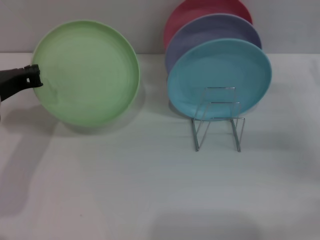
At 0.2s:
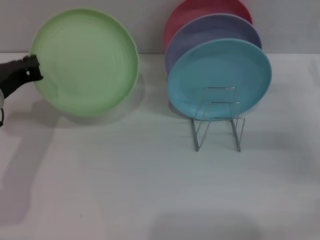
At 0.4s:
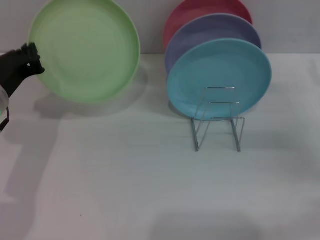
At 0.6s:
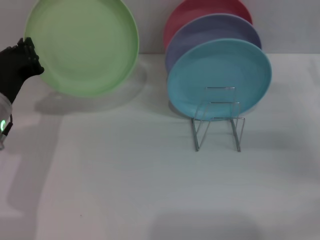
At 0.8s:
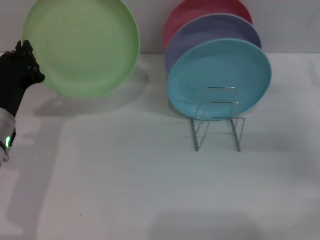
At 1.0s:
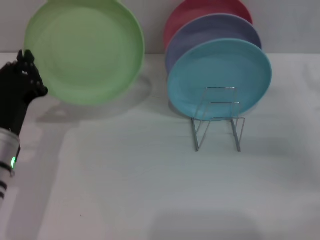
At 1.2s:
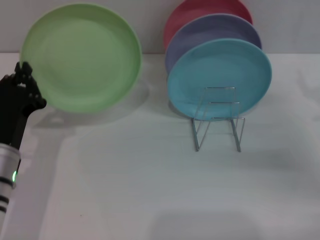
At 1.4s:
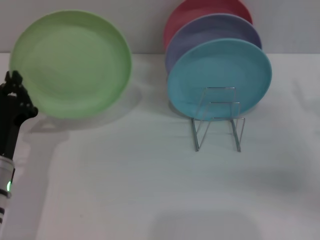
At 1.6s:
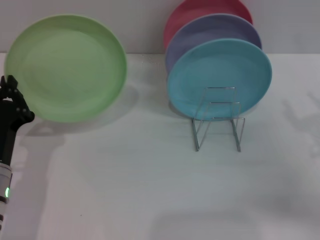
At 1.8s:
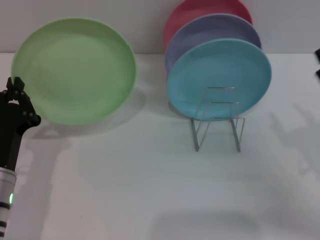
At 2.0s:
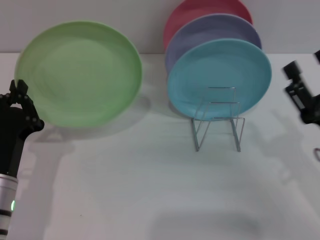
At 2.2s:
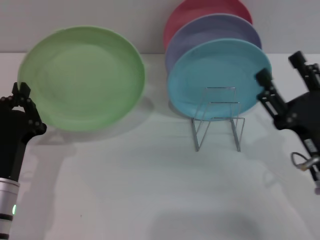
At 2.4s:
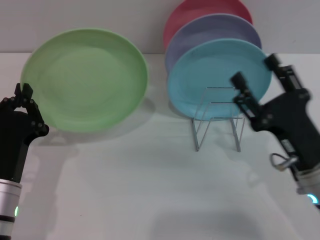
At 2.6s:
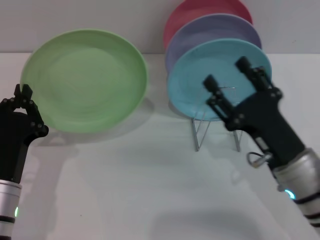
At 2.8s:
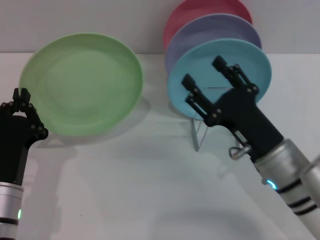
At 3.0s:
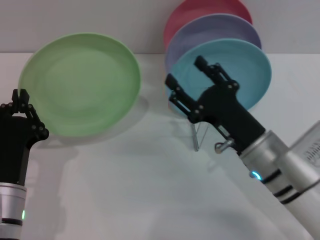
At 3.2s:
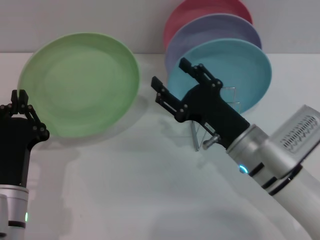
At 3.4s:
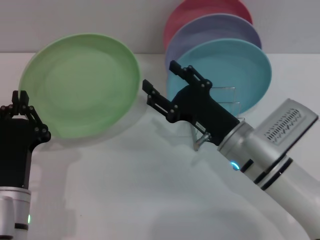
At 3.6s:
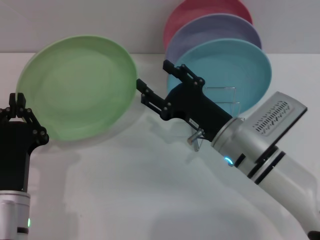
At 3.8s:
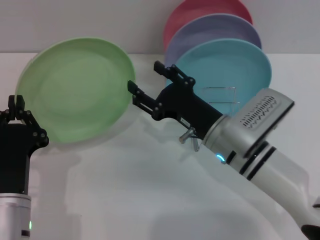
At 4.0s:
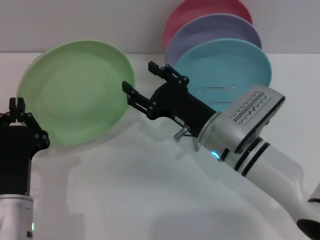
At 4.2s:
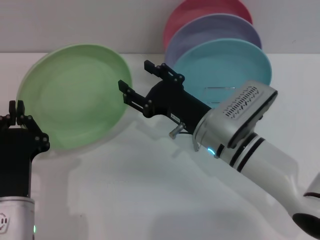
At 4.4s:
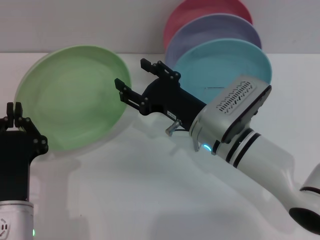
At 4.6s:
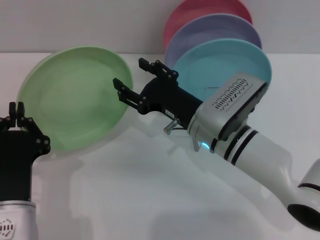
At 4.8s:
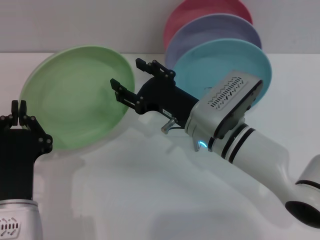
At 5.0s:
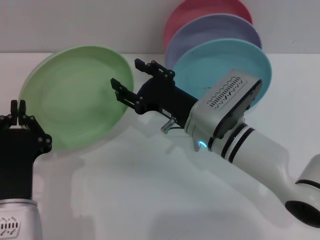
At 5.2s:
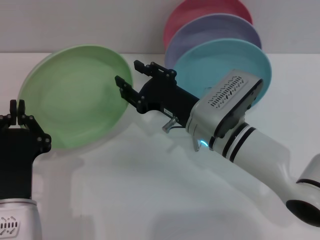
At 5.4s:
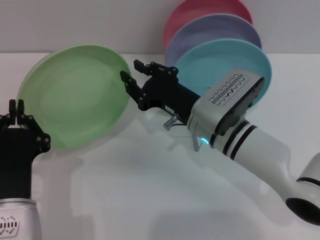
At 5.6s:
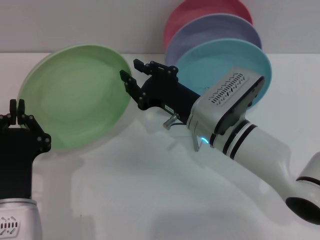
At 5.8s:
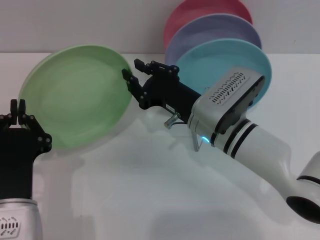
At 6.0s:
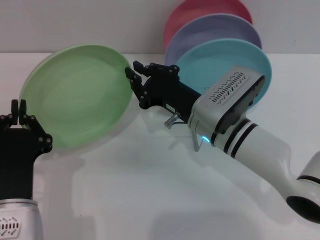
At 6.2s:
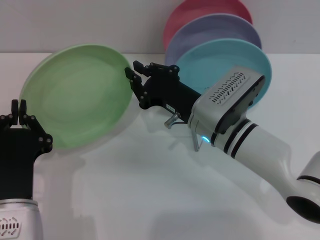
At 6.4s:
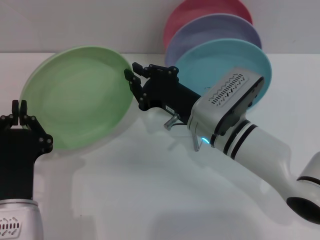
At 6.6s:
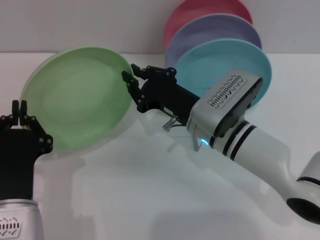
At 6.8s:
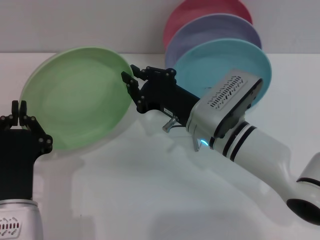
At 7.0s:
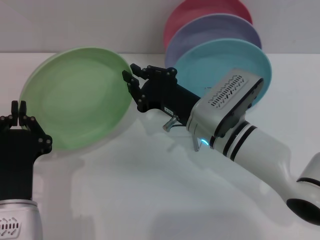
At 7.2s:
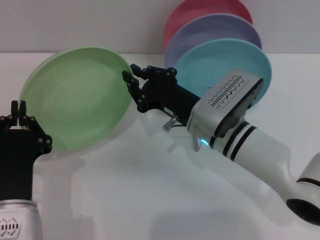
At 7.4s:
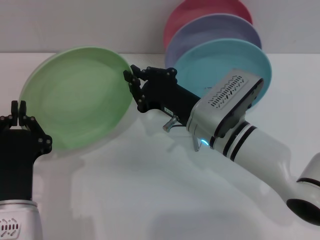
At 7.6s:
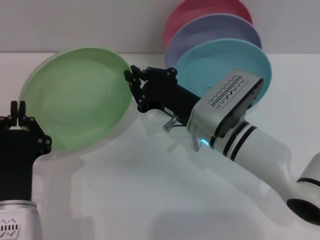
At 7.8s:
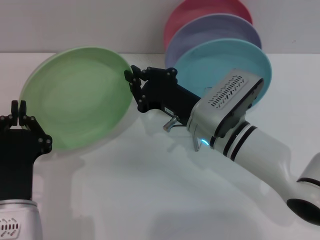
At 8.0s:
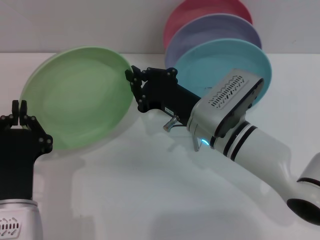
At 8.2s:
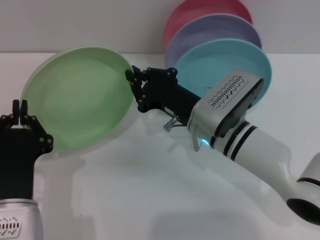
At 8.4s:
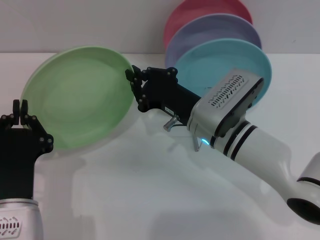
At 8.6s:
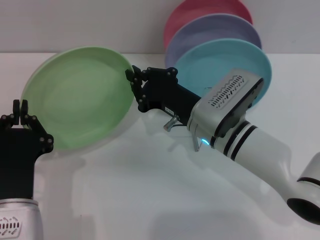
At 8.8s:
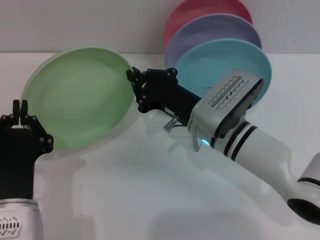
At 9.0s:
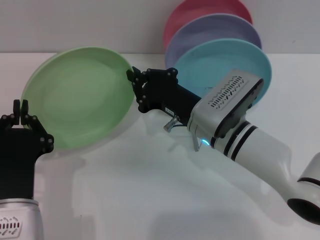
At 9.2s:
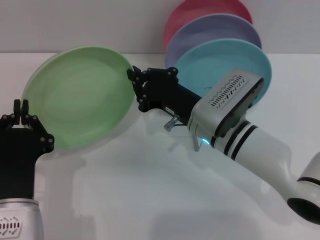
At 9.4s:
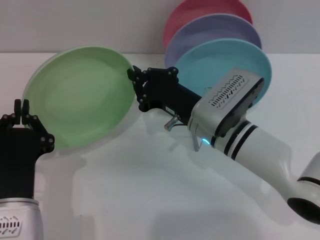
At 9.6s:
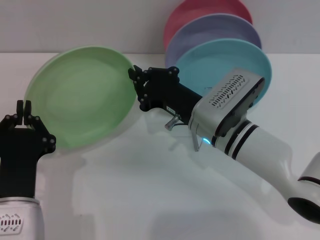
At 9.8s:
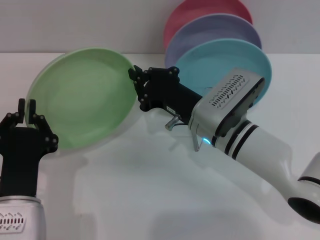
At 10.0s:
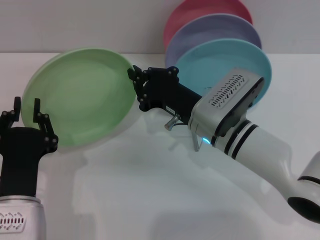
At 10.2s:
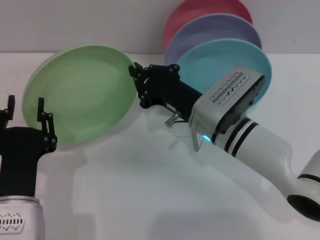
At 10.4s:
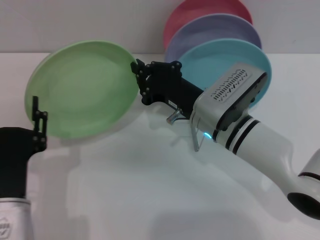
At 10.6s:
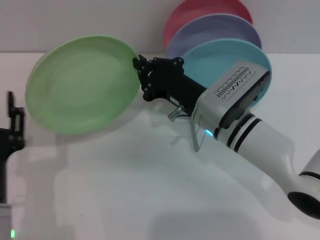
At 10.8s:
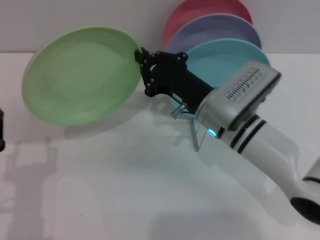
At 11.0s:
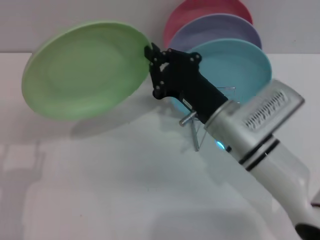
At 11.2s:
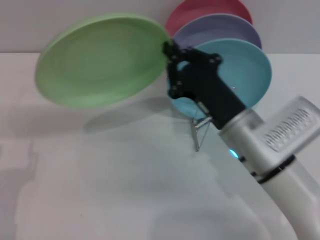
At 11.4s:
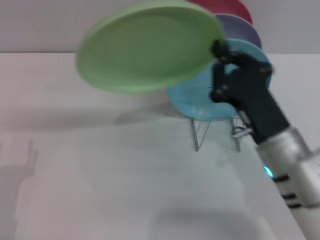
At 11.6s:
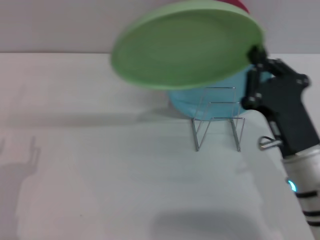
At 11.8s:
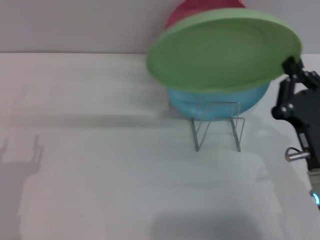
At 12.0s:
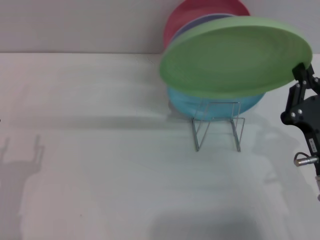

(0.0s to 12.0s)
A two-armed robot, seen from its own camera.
Task of the whole recording: Grip the plate with one hand, pass it to the other, then set it on the shelf.
Step, 0.0s - 10.0s: Pass the plate from the left gripper to the right gripper.
0.0s - 1.6s: The left gripper travels downward and backward by some 15 cm, while the right gripper goes roughly 10 cm backward.
1.6s - 3.0s: The right gripper is displaced to the left by some 15 cm.
3.0s - 4.4s: The right gripper goes approximately 10 cm to the left and forward.
4.4s - 6.0s: The right gripper closes its fingers.
6.0s - 9.0s: Neither gripper changes place.
9.0s - 10.4s: The left gripper opens its fingers.
10.4s - 12.0s: The left gripper moves to the left, about 10 cm. The right gripper is displaced backward and to the right by about 20 cm.

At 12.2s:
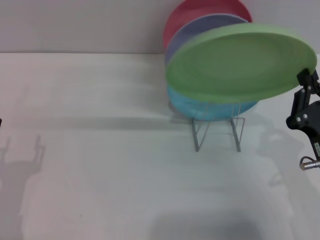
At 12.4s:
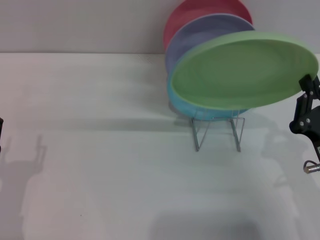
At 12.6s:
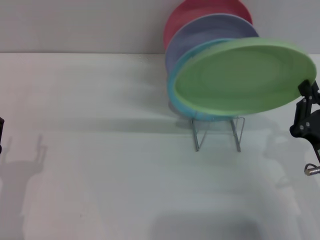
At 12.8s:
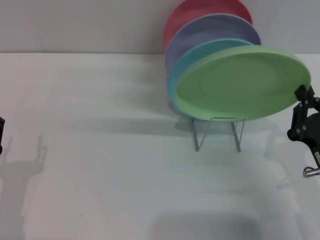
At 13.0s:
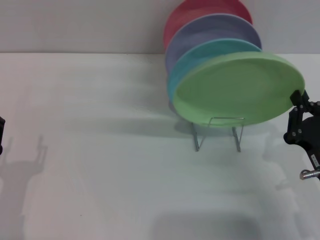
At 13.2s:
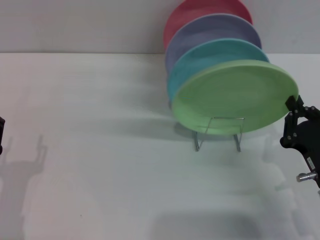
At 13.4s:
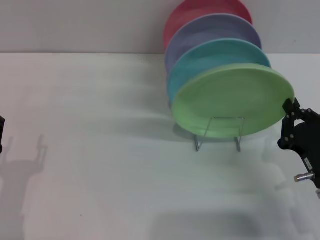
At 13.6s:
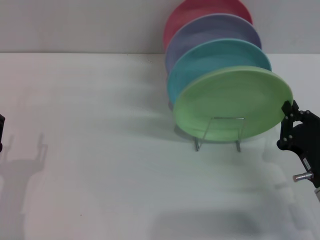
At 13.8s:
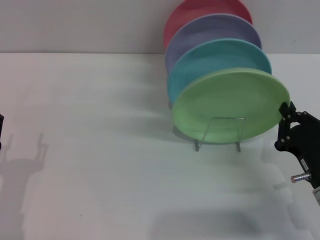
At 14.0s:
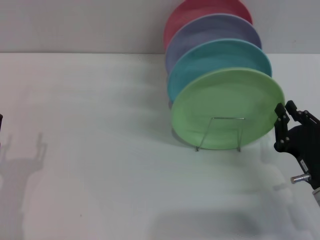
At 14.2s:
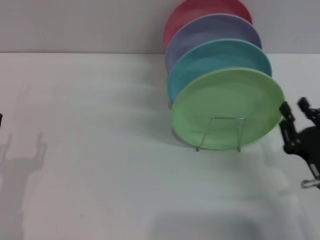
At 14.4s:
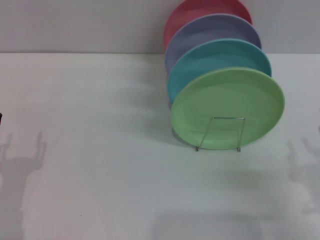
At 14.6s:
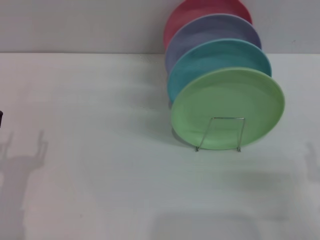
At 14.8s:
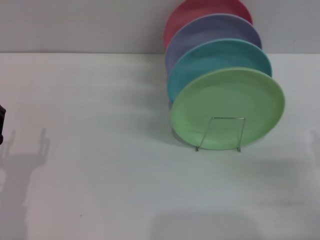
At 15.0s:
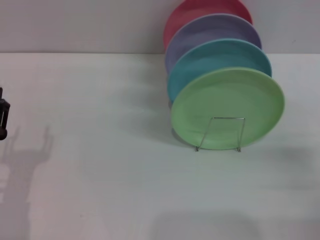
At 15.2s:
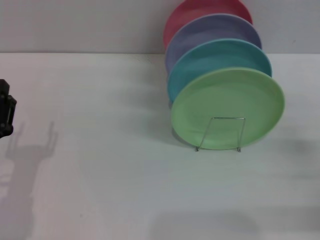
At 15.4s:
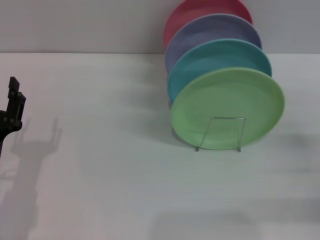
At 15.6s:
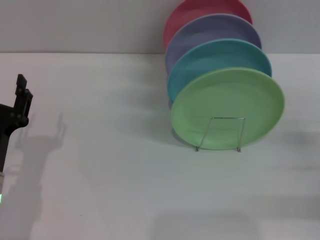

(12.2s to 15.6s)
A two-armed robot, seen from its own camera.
Task of the whole recording: Grip the plate with one hand, pass it to the other, then set it on the shelf.
12.2s - 13.8s: The grippers stay close to where they were, moving slightly.
13.8s - 15.6s: The left gripper changes place by roughly 5 cm. Meanwhile the right gripper is displaced to the right by approximately 10 cm, and opens up.
